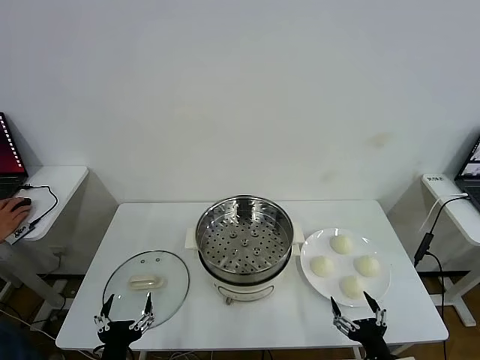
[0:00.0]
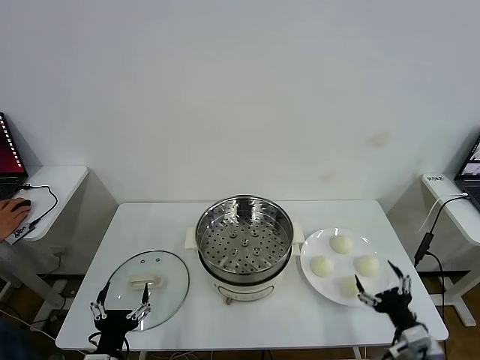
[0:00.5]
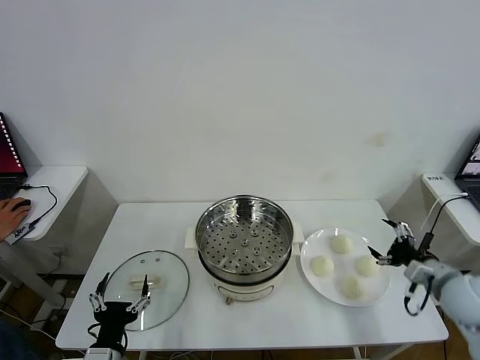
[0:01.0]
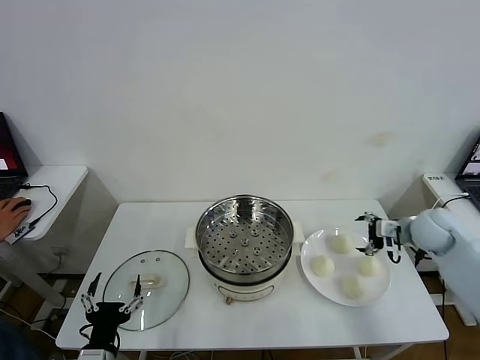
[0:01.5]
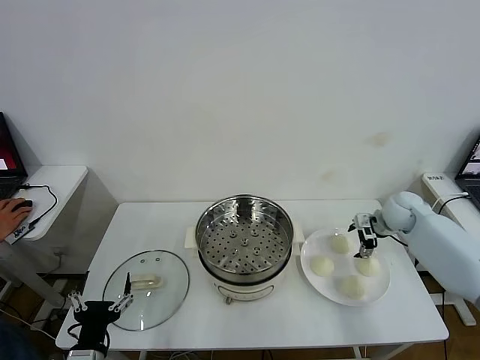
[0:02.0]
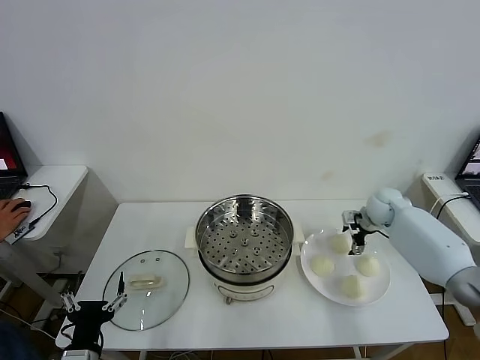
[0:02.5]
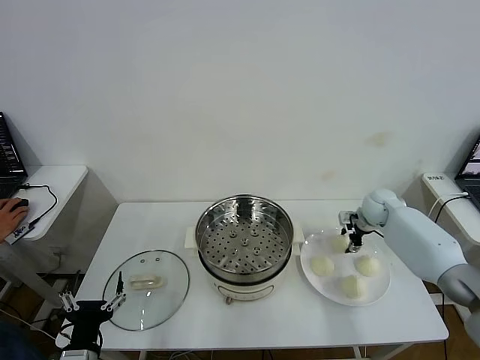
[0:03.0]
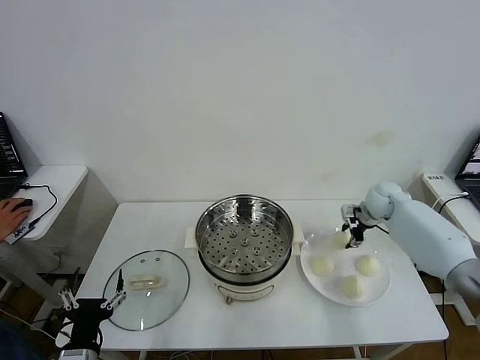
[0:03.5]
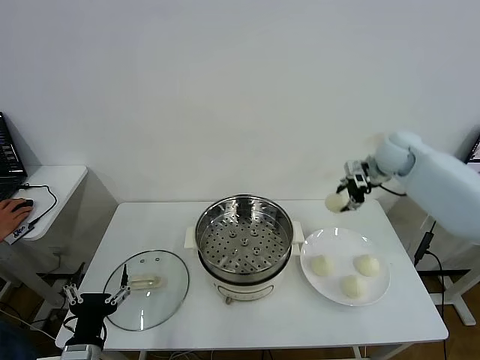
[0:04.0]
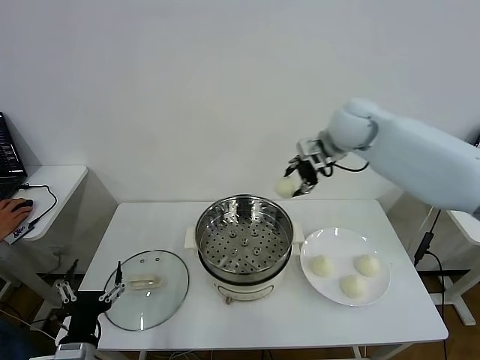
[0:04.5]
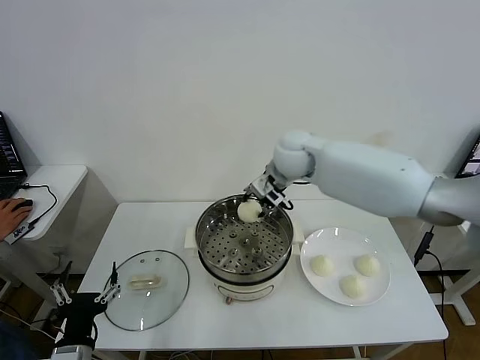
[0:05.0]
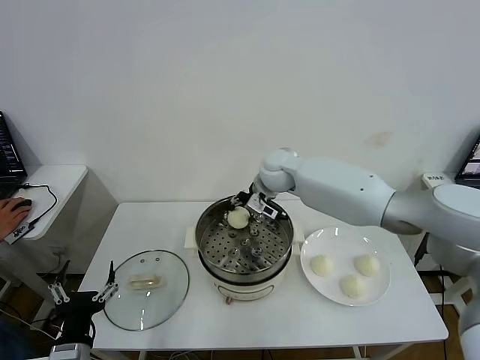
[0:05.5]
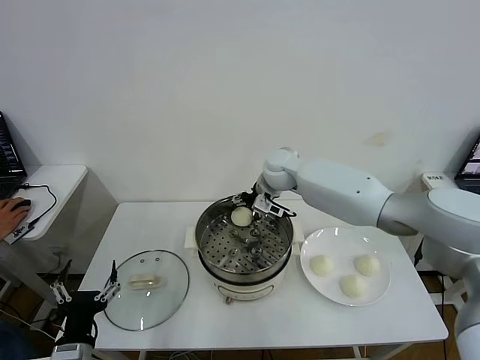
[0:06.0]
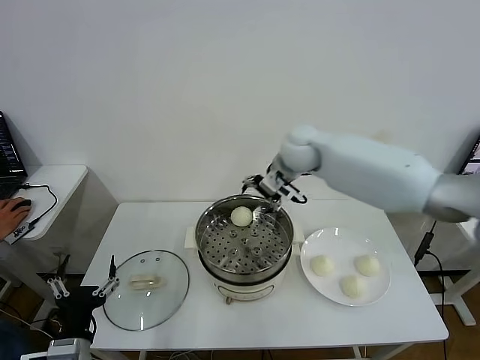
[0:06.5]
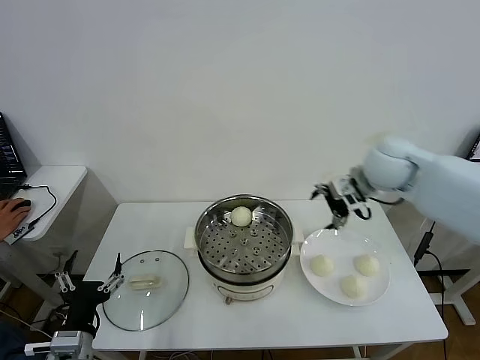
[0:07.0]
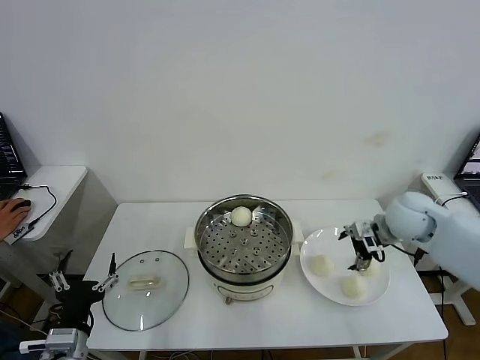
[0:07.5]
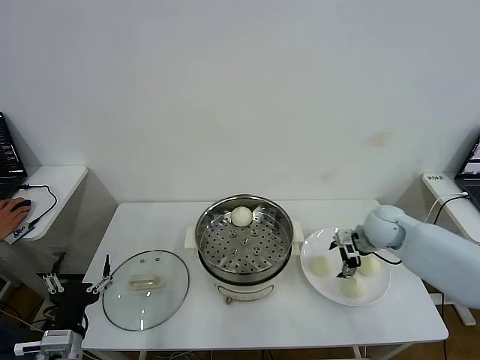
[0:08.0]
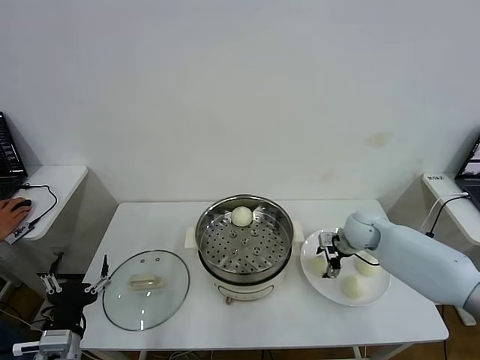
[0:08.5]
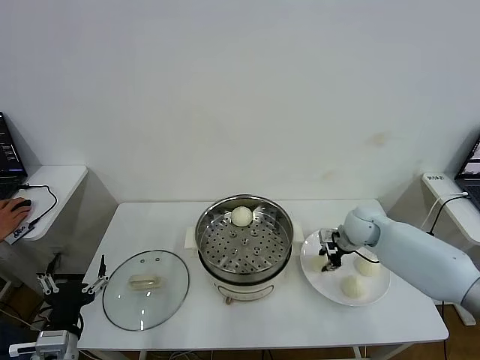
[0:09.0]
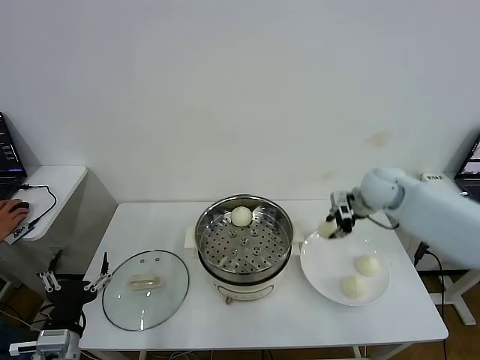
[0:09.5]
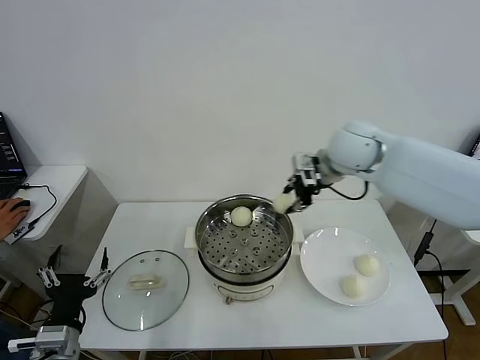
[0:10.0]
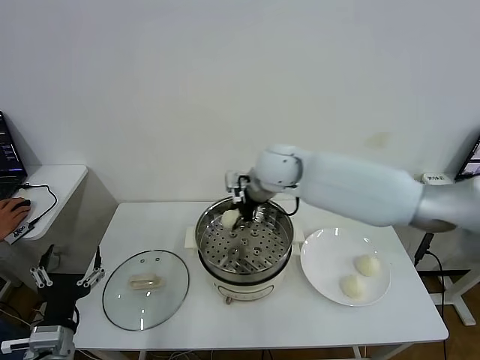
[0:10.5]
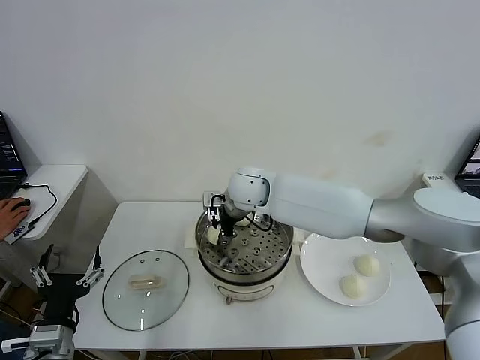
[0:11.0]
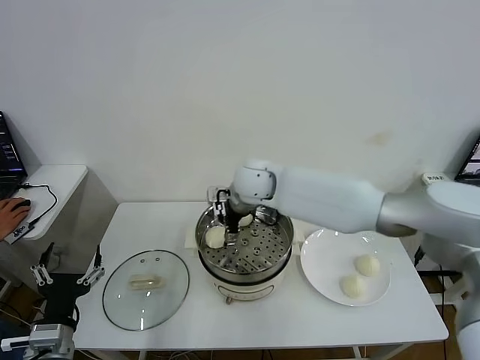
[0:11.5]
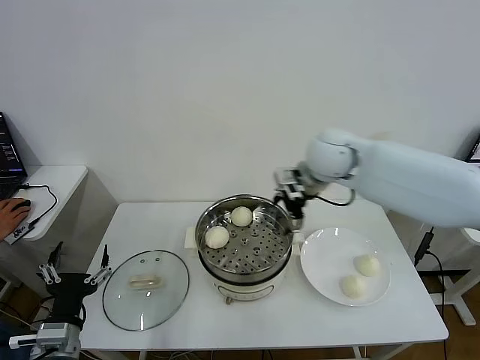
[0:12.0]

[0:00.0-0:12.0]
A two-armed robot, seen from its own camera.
Task of the whole recording: take steamed baozi put them in steamer then cover it.
Step, 0:00.0 to 0:02.5: Grasp the baozi in the plate with right gripper.
Step, 0:03.5 to 0:06.0: Place the baozi on the steamer with right gripper.
Step, 0:06.5 to 0:08.5: Grasp the baozi in the plate with right gripper.
Step, 0:09.0 to 0:11.0: Place the baozi on the steamer with right gripper.
0:02.0 to 0:04.0: The right gripper is displaced upward by approximately 15 cm, and closes its fingers.
0:04.0 to 0:06.0: The right gripper is displaced to the left by roughly 25 cm, and opens.
0:06.0 to 0:08.0: The right gripper goes roughly 25 cm to the right and backward.
0:08.0 to 0:10.0: The right gripper travels upward and to the left by about 25 cm, and closes its fingers.
0:10.0 to 0:12.0: The right gripper reaches some 20 cm to the left, then returns, and opens its fingers.

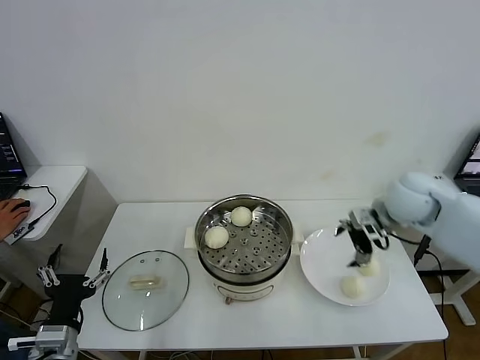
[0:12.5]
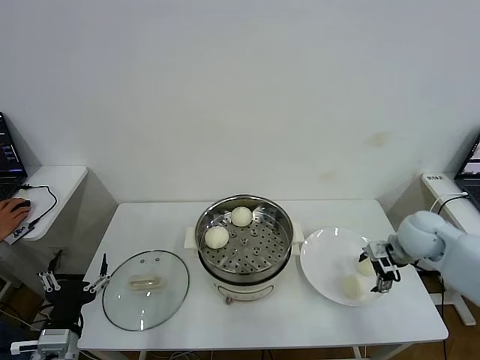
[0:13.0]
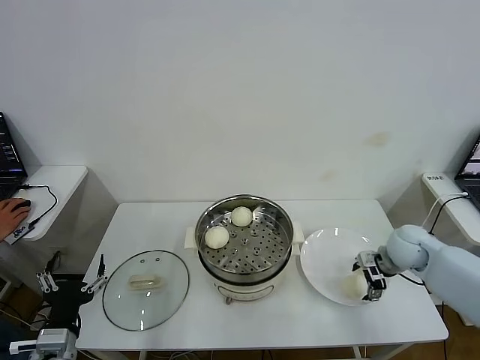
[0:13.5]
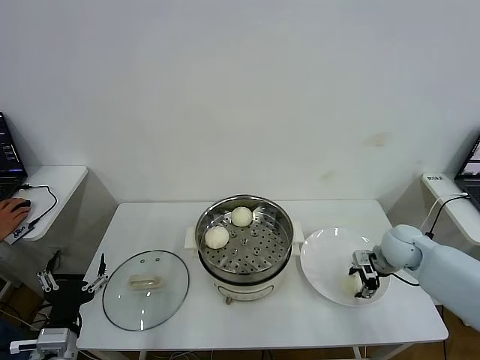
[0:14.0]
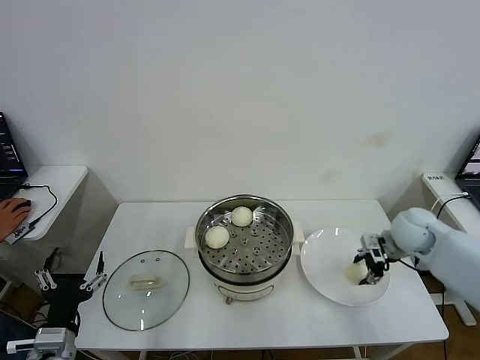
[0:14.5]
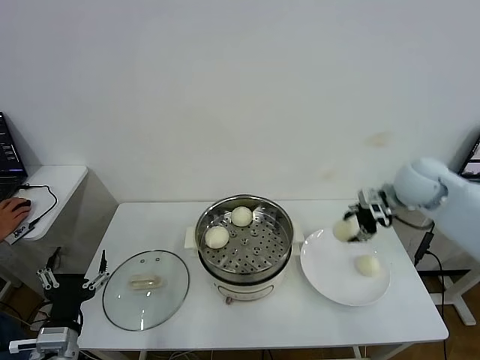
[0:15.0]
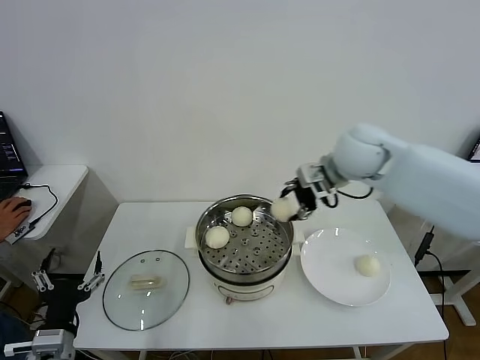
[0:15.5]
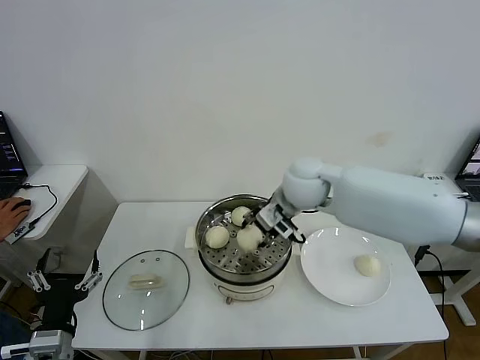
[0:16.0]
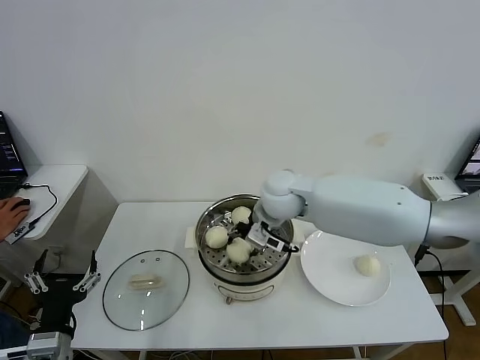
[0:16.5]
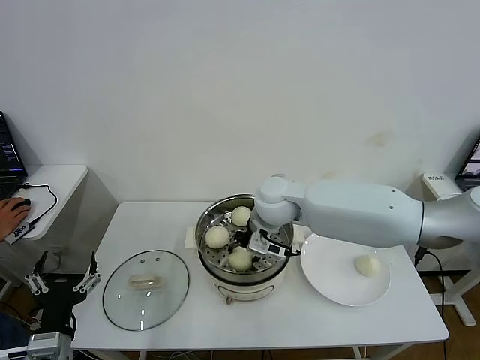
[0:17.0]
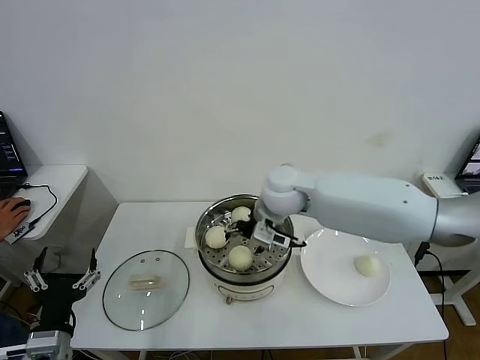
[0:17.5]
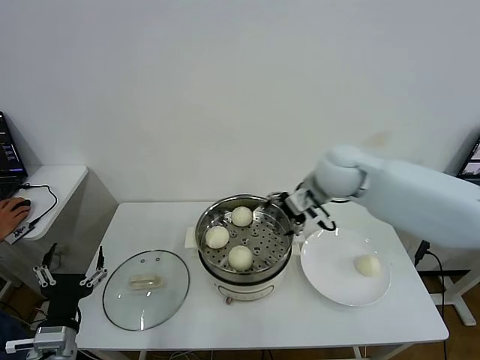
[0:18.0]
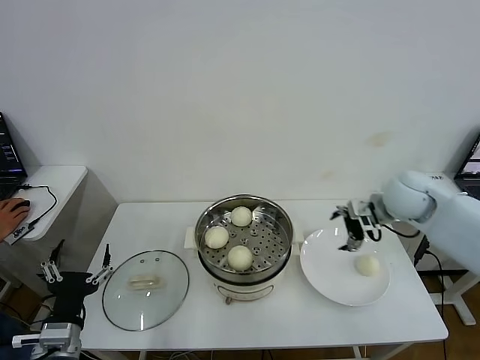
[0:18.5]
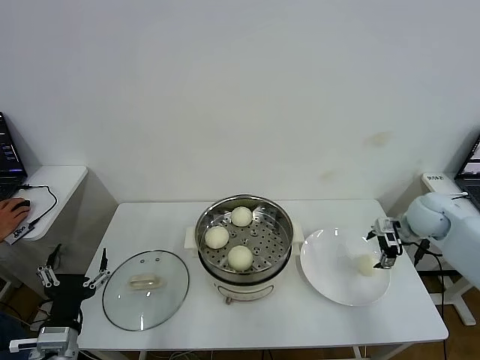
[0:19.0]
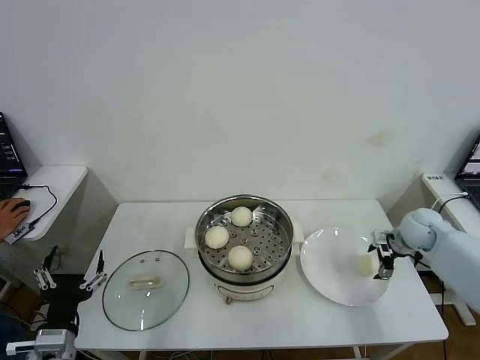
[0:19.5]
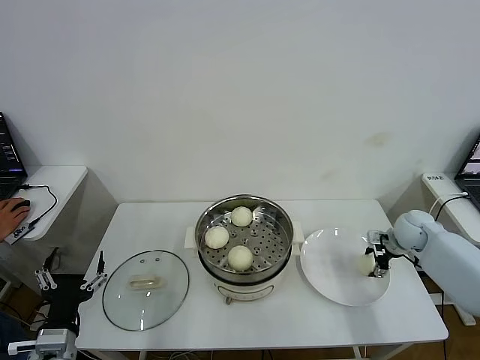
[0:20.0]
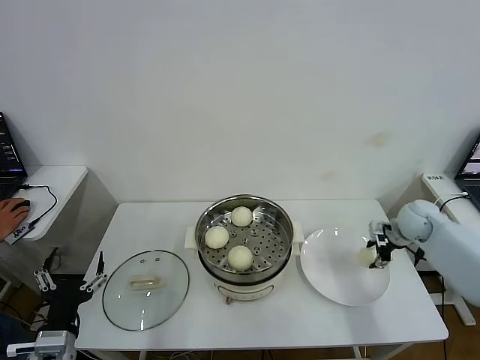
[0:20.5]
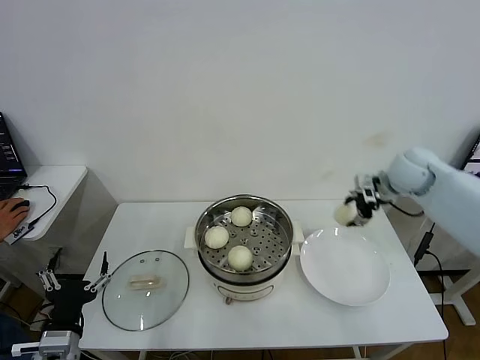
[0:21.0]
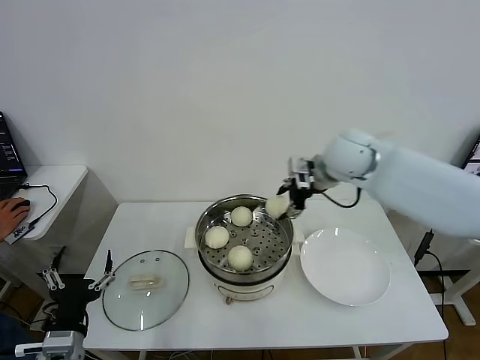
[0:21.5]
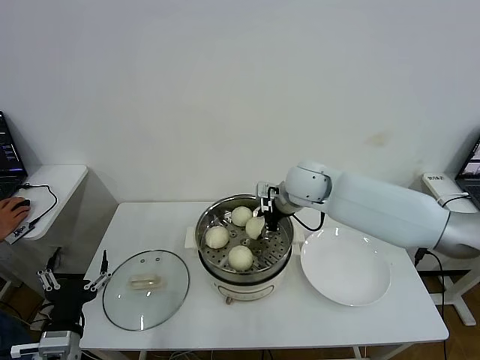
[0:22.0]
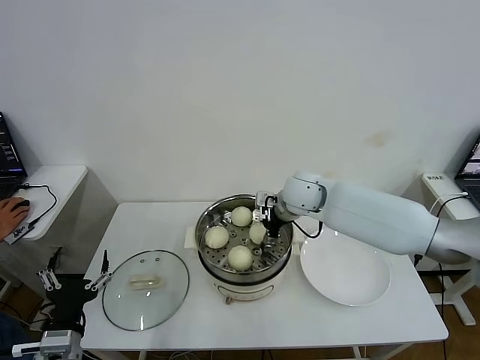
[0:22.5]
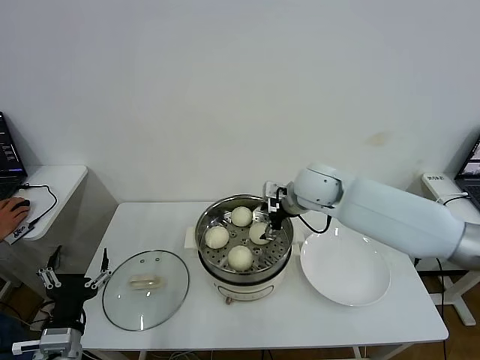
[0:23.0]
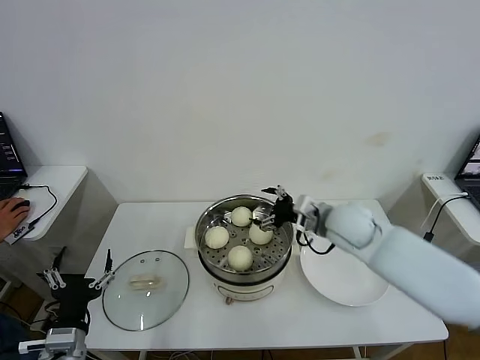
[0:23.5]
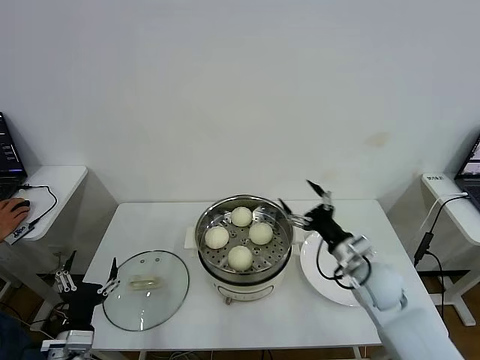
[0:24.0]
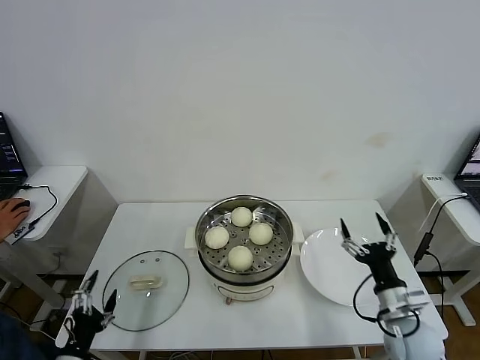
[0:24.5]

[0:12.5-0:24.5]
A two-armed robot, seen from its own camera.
Task of the whole recording: take steamed baozi put them in steamer then cover it.
Step, 0:14.0 to 0:17.0: Place the baozi on the steamer with right gripper.
Step, 0:17.5 to 0:20.0: Grasp the baozi in the plate with right gripper.
Step, 0:20.5 to 0:22.5: Place the baozi on the steamer with right gripper.
0:12.5 to 0:14.5: The right gripper goes about 10 cm downward and to the right, and closes.
0:14.5 to 0:16.5: The right gripper travels to the left by some 30 cm.
0:16.5 to 0:18.5: The right gripper shifts approximately 25 cm to the right, and opens up.
0:18.5 to 0:20.5: The right gripper heads downward and to the right, covering approximately 15 cm, and closes.
0:20.5 to 0:22.5: The right gripper shifts about 30 cm to the left.
0:22.5 to 0:24.5: The right gripper shifts approximately 35 cm backward, to the right and downward, while the left gripper travels downward and to the left by roughly 10 cm.

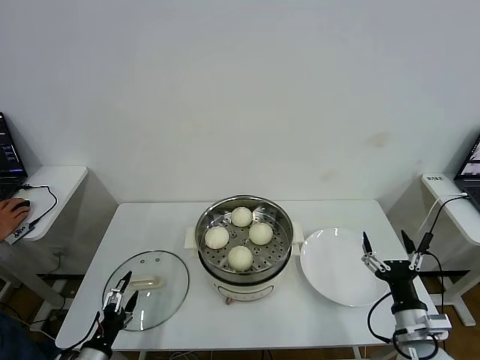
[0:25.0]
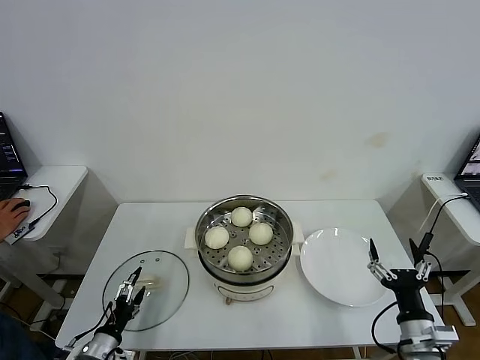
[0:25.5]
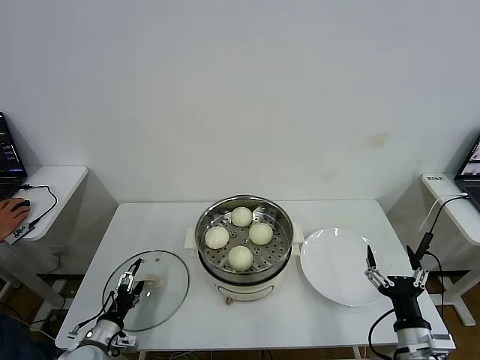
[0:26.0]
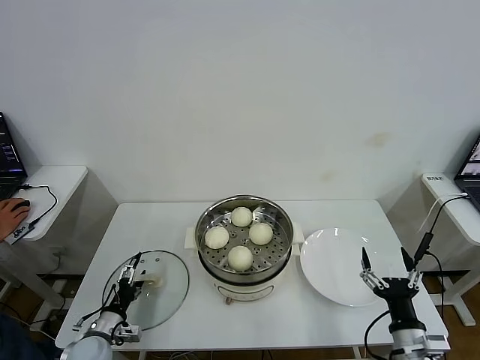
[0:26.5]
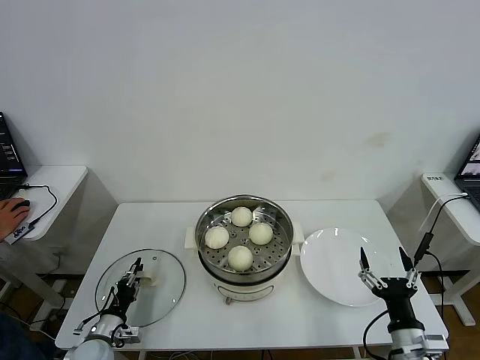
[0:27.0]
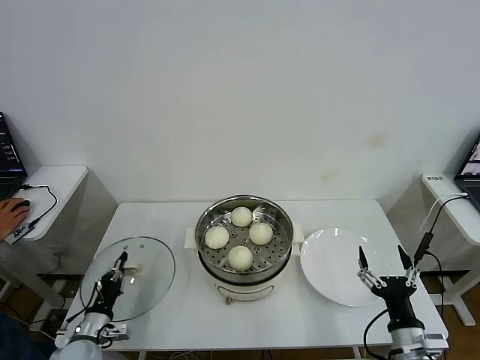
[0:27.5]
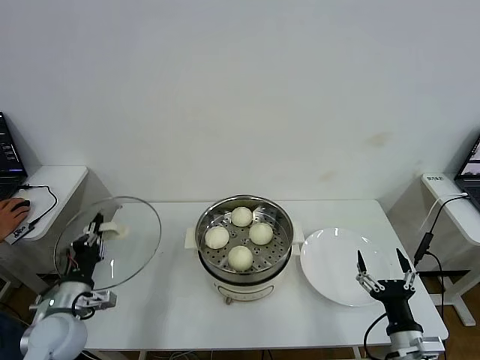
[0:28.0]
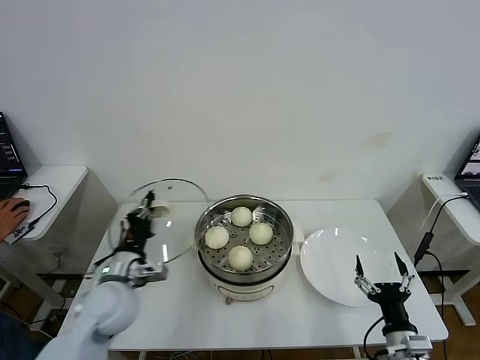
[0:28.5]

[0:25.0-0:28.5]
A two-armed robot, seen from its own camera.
Task of the whole recording: take steamed baozi put them in steamer then cover it.
Step, 0:25.0 to 0:27.0: Grasp the pot lid with left gripper.
0:25.0 to 0:27.0: The left gripper travels forward and downward by some 10 cm, and closes its fingers.
0:27.0 to 0:28.5: The left gripper shifts about 25 cm upward and to the right, and closes its fingers.
